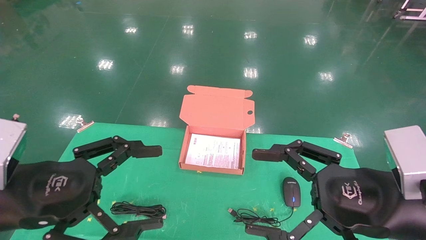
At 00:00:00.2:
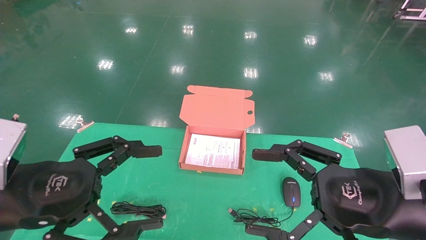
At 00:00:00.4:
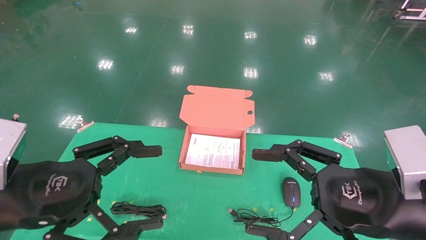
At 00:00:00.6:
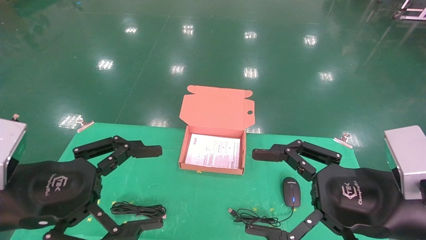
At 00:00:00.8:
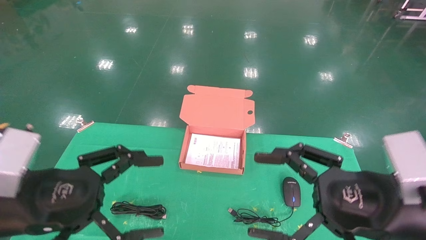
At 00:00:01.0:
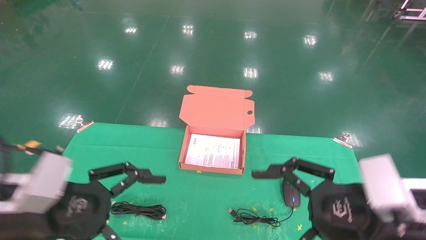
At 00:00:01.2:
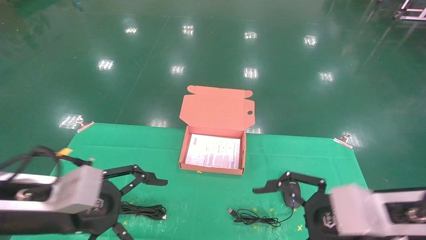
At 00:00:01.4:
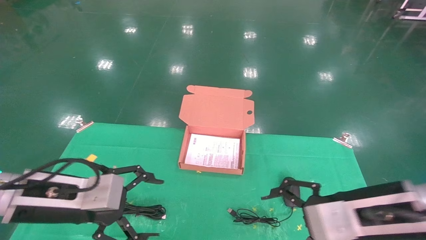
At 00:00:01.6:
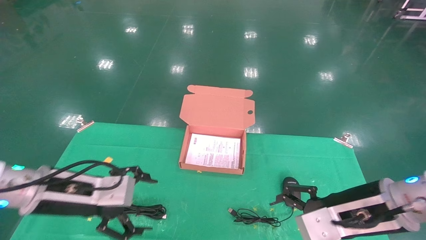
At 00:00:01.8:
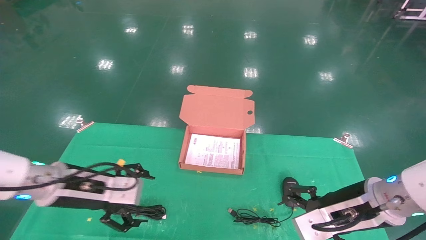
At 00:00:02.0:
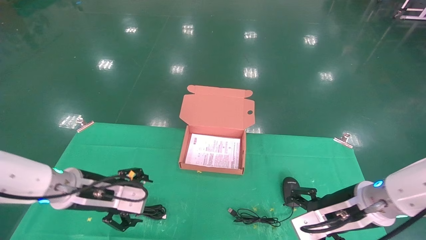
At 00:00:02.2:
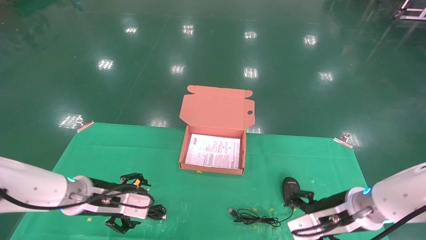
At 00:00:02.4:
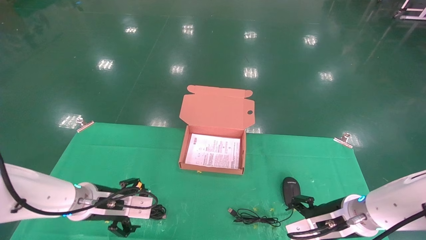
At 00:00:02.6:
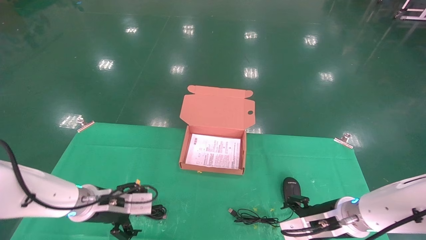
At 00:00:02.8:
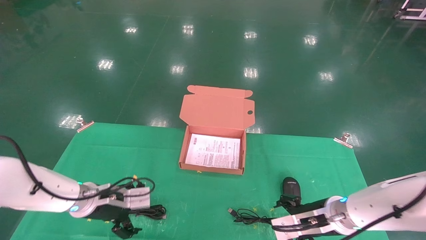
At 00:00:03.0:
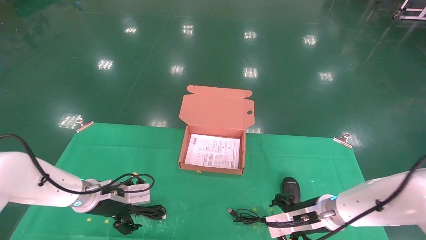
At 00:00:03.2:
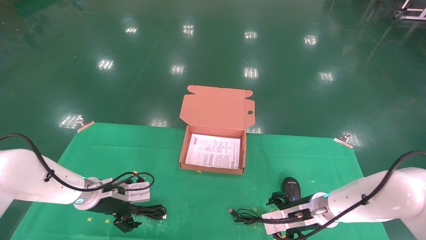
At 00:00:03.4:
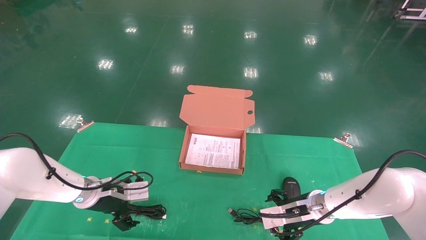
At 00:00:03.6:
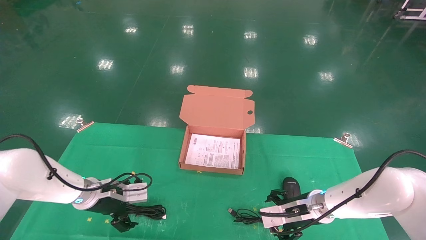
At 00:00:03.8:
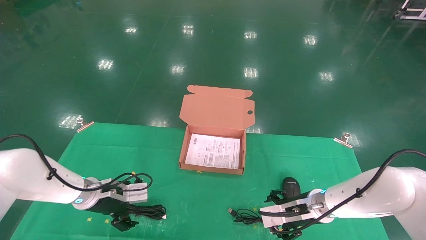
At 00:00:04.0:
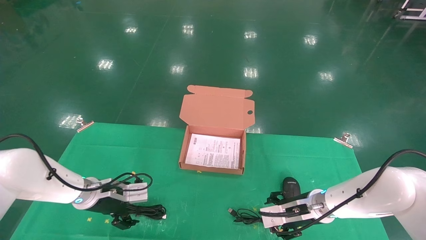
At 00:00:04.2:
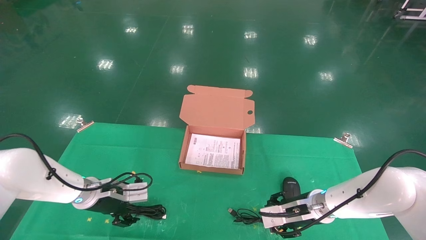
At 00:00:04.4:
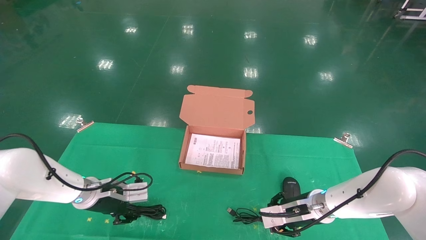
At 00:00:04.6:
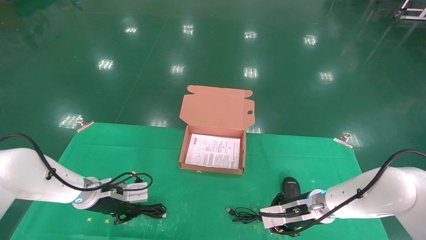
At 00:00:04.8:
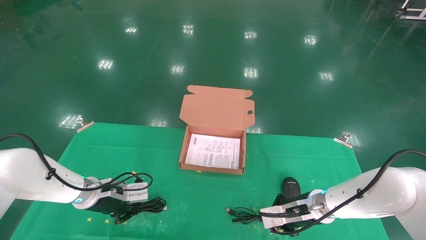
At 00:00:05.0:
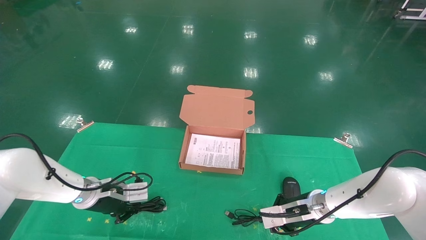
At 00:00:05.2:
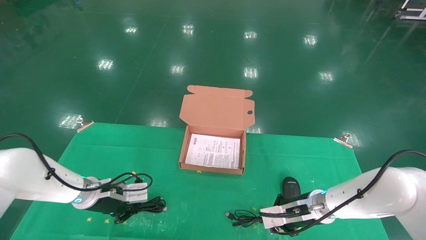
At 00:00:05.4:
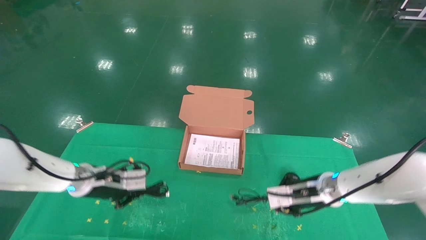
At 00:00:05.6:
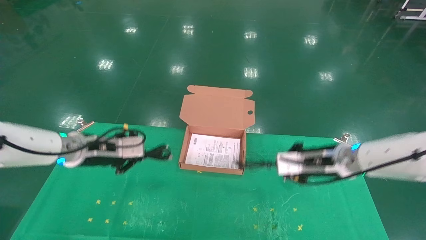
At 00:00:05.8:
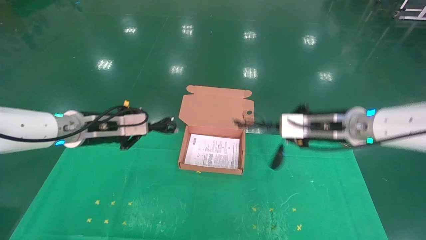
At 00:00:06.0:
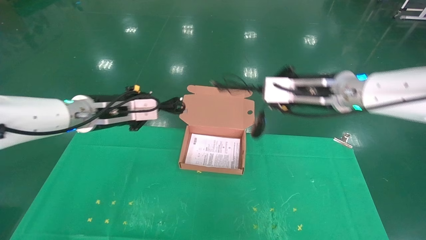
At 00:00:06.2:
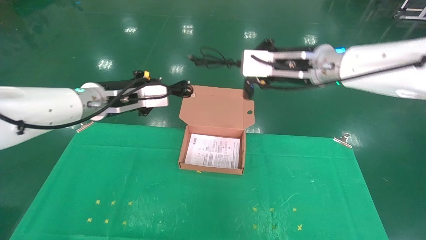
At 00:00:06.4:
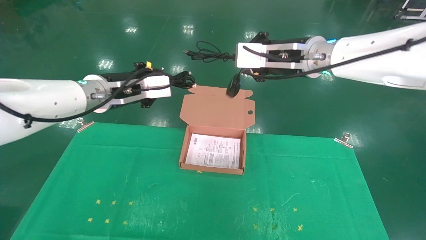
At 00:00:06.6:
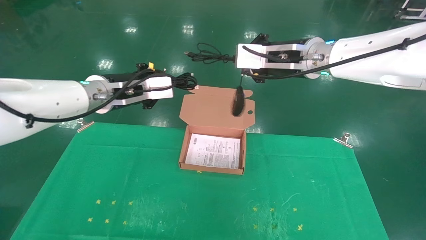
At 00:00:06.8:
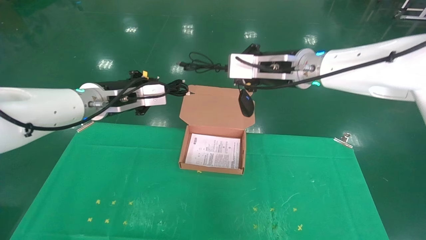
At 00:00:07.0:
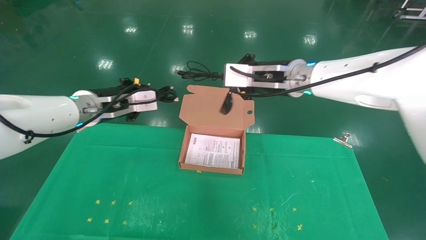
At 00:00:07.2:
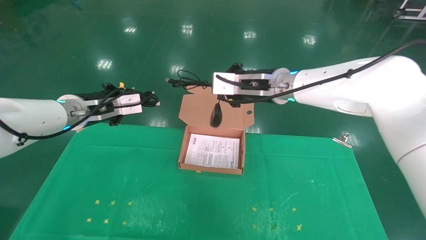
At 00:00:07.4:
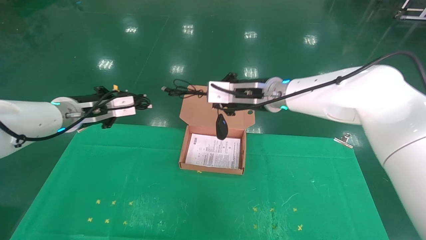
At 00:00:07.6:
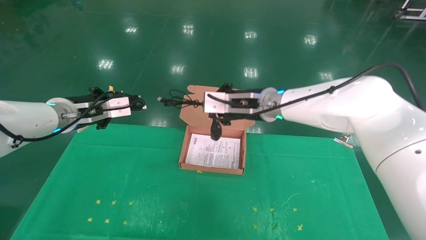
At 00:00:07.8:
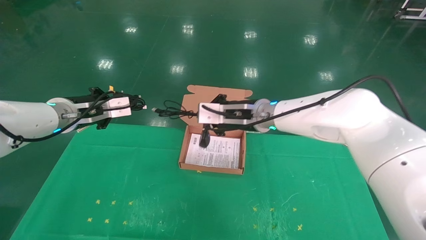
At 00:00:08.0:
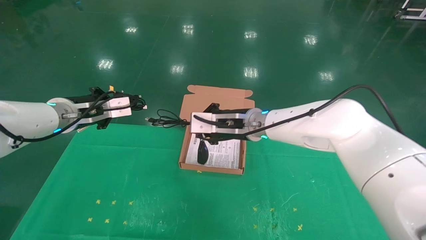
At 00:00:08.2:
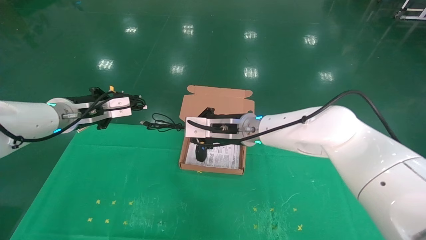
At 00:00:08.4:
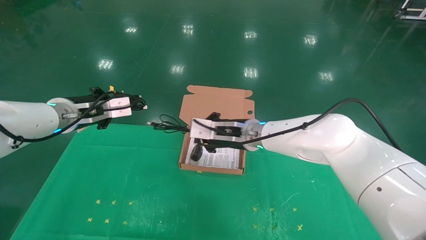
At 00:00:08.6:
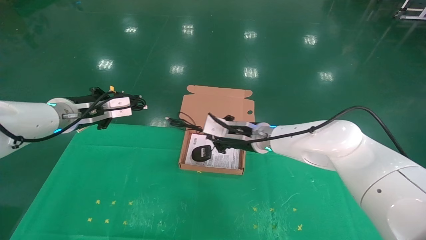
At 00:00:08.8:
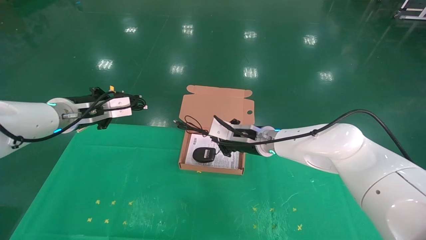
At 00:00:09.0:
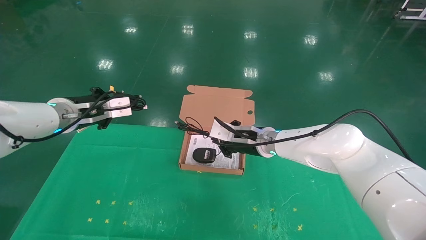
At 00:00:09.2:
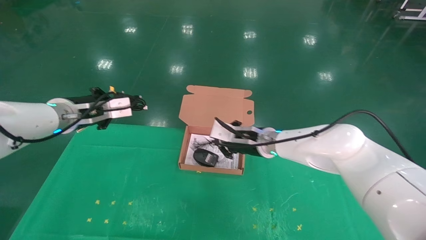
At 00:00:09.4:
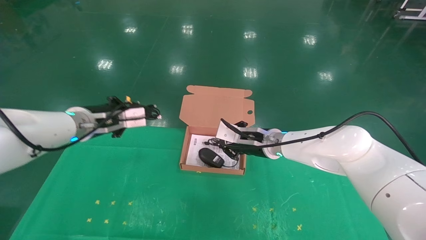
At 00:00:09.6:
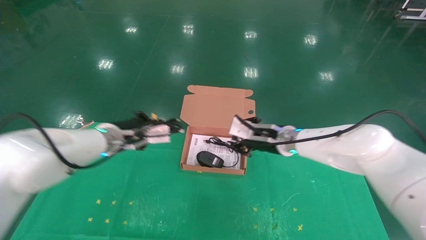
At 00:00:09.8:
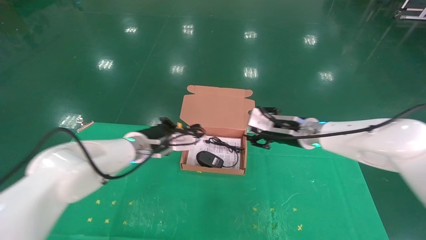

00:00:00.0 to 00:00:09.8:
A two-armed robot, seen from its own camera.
Task of the whole recording: grasp data cable left put into box grasp mouse right put into box.
Step, 00:00:00.8 to 00:00:05.8: Grab and pick up both the mouse and power cord from the accessory packaging area at the same time.
00:00:00.0 to 00:00:01.4: The two grippers go approximately 5 cm forward.
00:00:01.4 to 00:00:02.8: The grippers both shift forward and downward by about 15 cm.
00:00:02.8 to 00:00:04.2: The right gripper ends up about 5 cm from where it was.
00:00:04.2 to 00:00:05.6: Both grippers move upward, roughly 15 cm. The right gripper closes. Meanwhile the left gripper closes its fingers.
00:00:05.6 to 00:00:07.0: The right gripper is displaced upward and to the left by roughly 20 cm. Meanwhile the left gripper goes approximately 10 cm upward.
00:00:07.0 to 00:00:08.4: The right gripper moves downward and to the left, approximately 15 cm.
00:00:08.4 to 00:00:09.8: The left gripper heads to the right and downward, covering roughly 15 cm; the right gripper travels to the right by about 15 cm, and opens its fingers.

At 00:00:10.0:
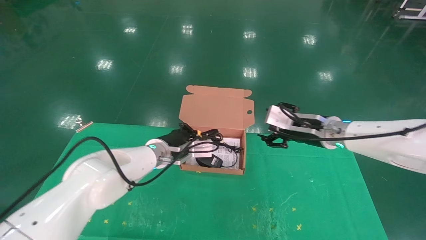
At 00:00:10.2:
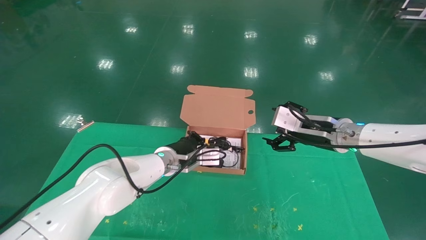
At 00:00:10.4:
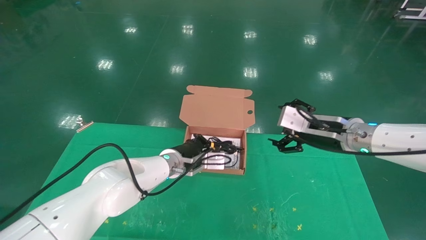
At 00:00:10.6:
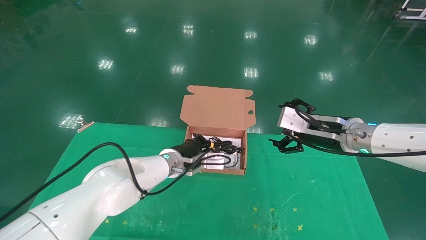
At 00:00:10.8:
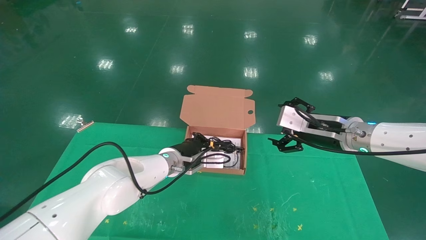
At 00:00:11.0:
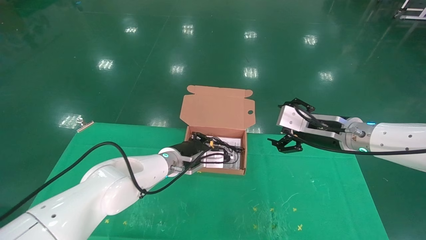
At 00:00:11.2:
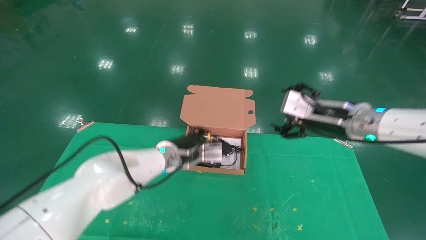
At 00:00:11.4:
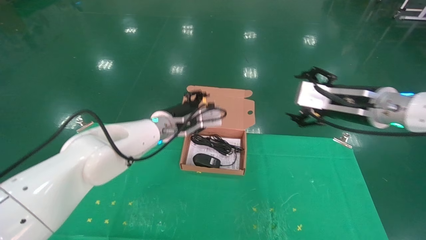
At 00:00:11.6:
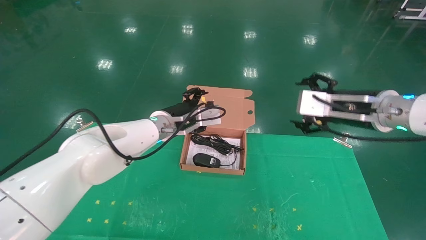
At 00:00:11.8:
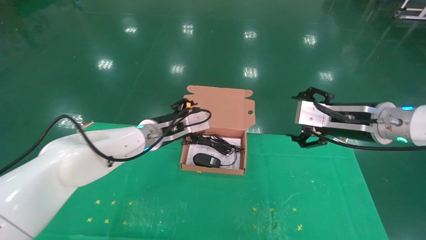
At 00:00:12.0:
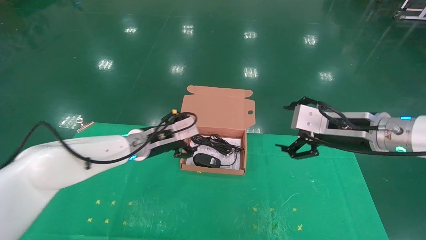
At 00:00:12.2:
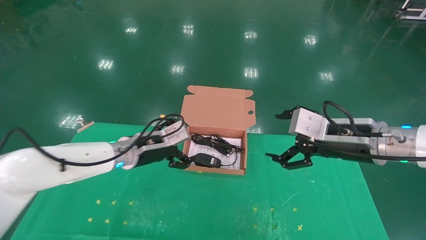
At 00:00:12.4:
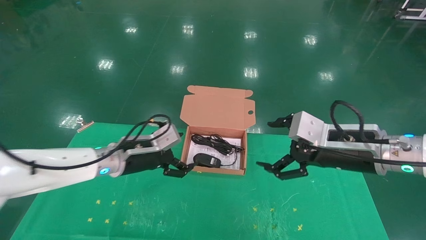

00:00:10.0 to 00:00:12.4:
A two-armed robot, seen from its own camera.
Task of the whole recording: grasp data cable left put into box grasp mouse right put into box.
00:00:10.0 to 00:00:11.2: The right gripper goes about 5 cm backward, and opens.
00:00:11.2 to 00:00:12.4: The left gripper travels to the left and backward by roughly 10 cm, and opens up; the right gripper goes approximately 5 cm backward.
